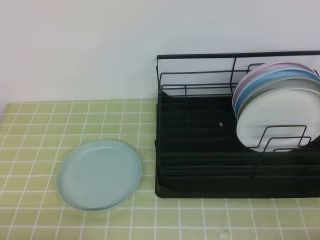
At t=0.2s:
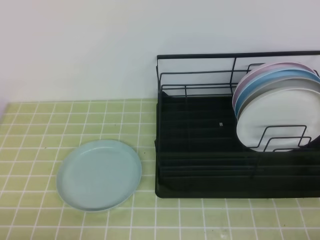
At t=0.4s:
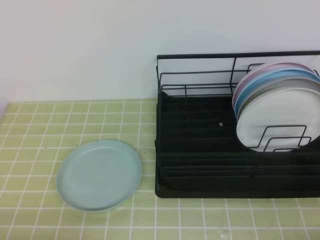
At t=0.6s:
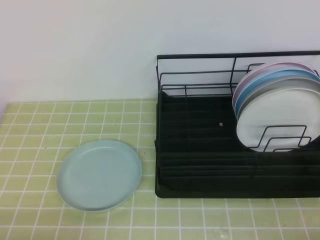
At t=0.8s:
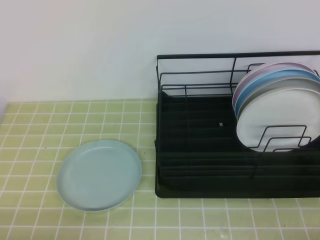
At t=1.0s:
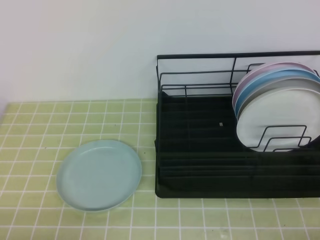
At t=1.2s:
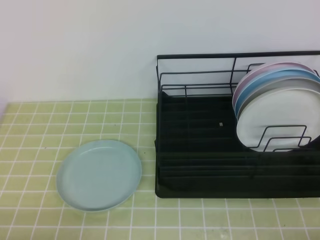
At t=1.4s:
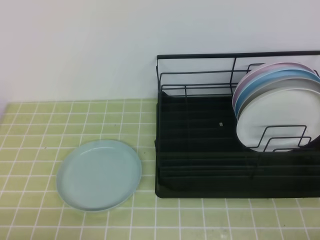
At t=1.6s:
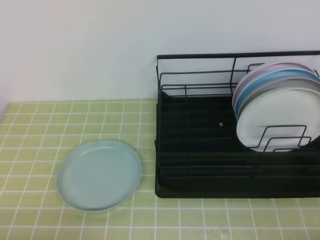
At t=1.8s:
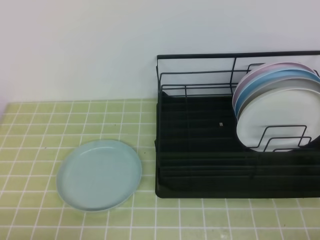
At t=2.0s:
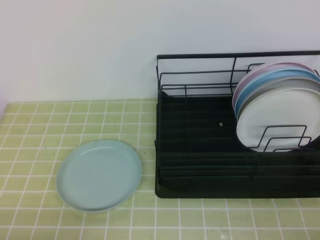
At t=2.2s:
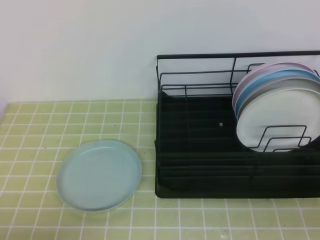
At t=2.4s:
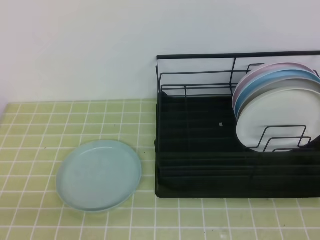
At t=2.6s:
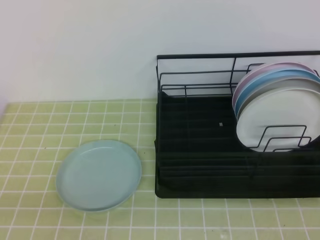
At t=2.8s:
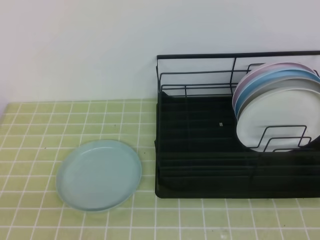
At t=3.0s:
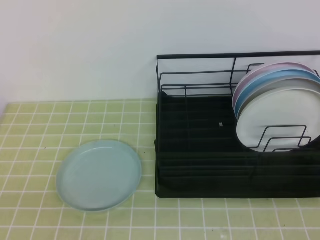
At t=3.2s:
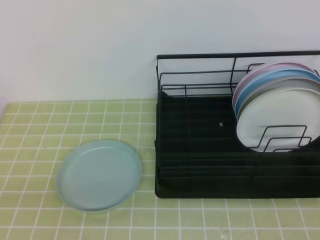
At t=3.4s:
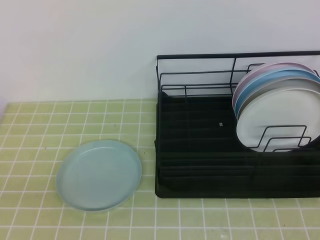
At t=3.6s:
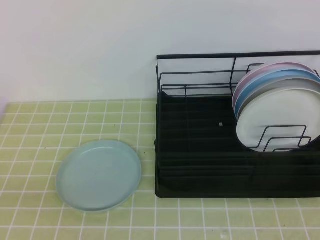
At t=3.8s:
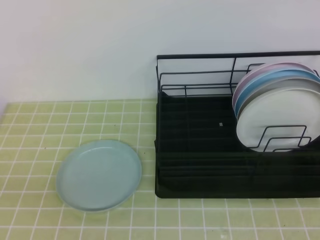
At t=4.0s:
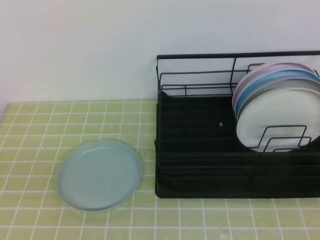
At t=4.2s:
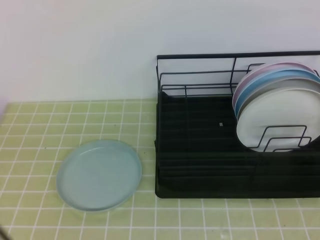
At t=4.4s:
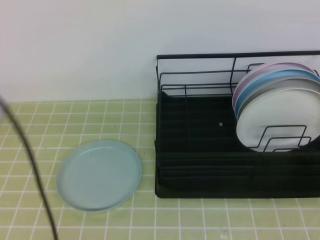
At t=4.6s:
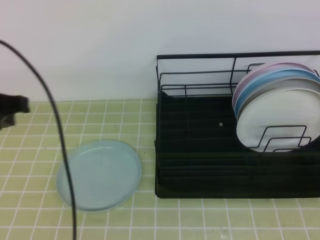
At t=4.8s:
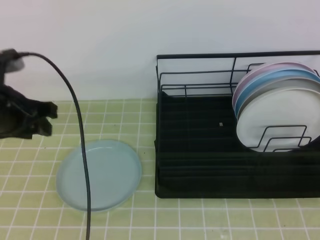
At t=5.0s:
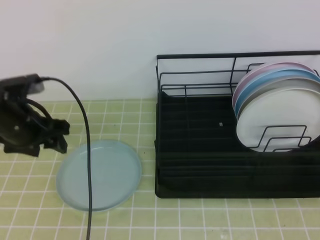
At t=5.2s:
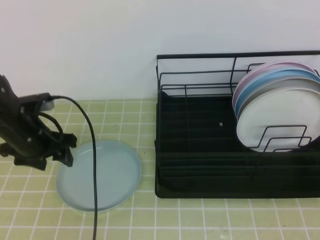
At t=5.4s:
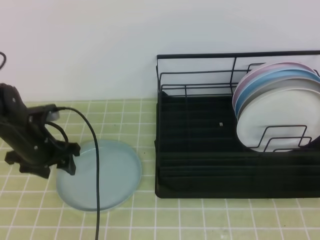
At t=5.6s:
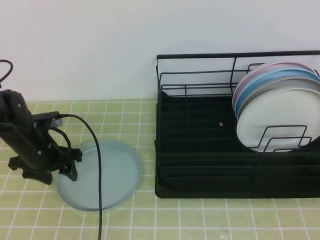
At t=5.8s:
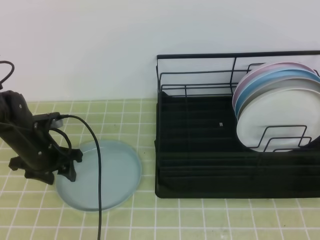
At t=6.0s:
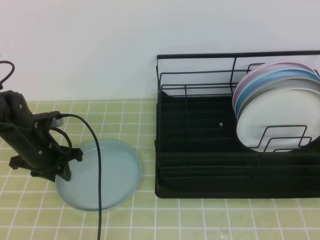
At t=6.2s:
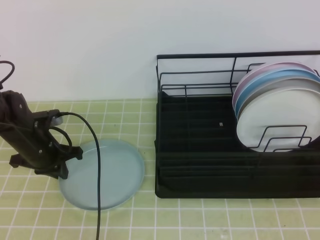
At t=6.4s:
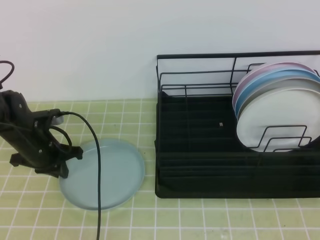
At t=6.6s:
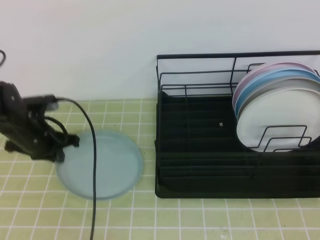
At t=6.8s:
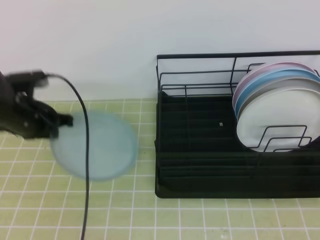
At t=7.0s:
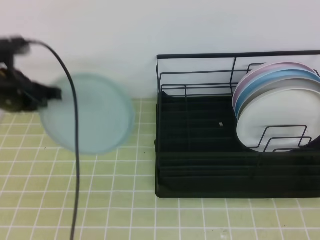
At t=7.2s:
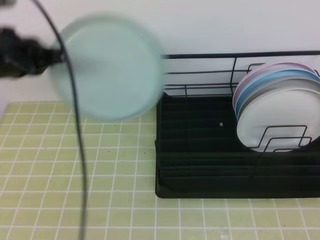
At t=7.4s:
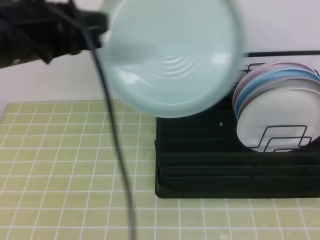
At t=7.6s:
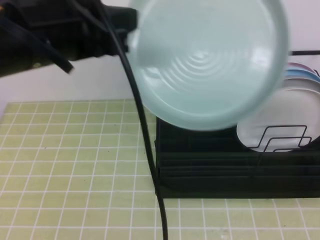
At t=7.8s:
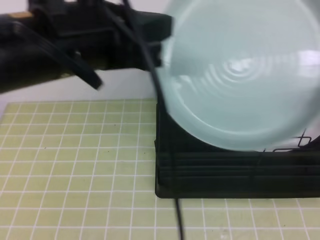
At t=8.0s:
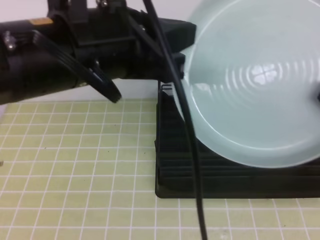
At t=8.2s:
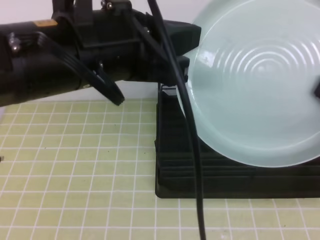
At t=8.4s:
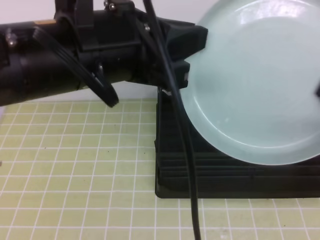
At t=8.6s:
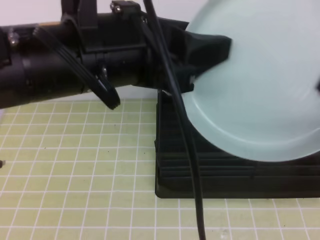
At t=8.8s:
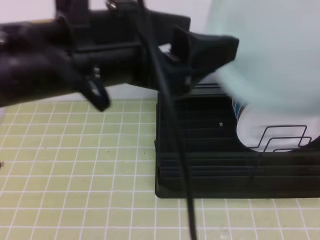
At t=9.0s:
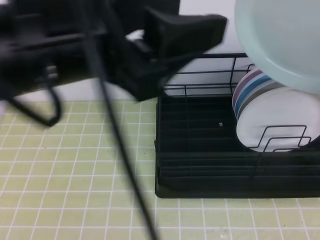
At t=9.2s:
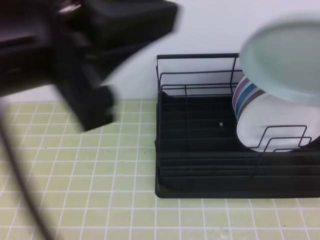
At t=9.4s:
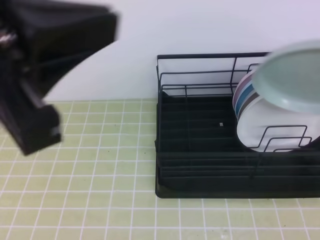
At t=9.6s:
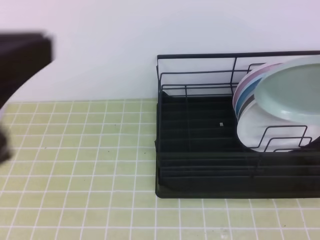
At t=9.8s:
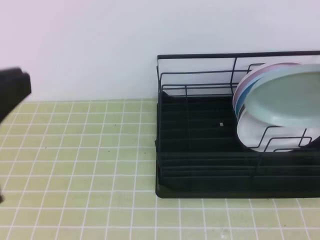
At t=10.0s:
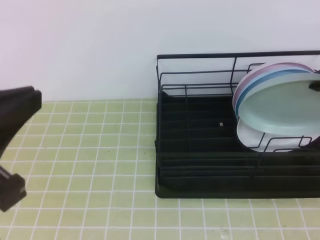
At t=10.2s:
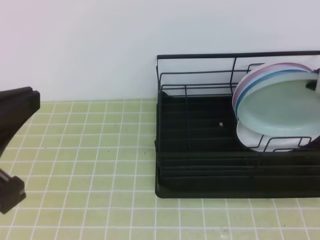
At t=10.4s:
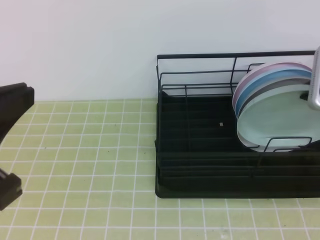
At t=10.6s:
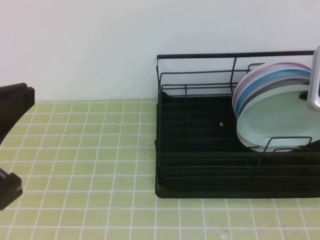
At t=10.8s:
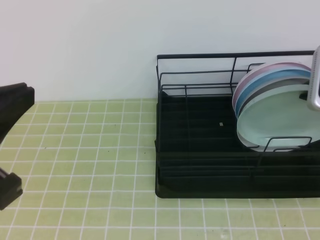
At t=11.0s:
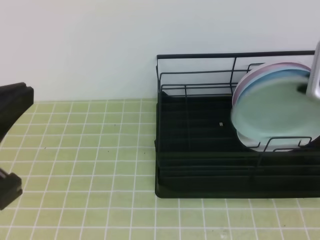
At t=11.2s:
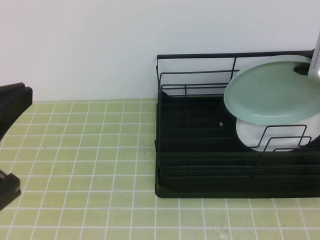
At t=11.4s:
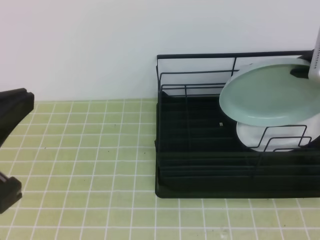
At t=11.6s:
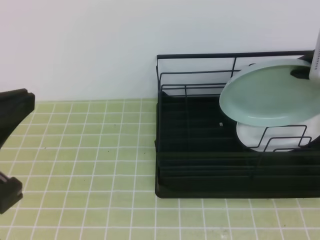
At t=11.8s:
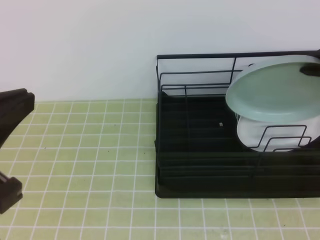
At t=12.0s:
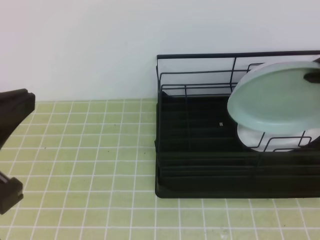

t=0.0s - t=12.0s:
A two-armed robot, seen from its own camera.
t=0.0s - t=1.6s: Neither gripper changes place.
t=3.0s - t=4.4s: The left gripper heads forward and upward, covering about 20 cm.
t=4.4s - t=6.0s: The left gripper heads downward and forward, covering approximately 30 cm, and opens up.
t=6.0s - t=7.6s: The left gripper travels upward and backward by about 30 cm, and closes. Meanwhile the right gripper travels upward by some 5 cm, and opens.
t=7.6s - t=9.0s: The right gripper goes some 5 cm forward, and closes its fingers; the left gripper heads backward, covering some 5 cm, and opens its fingers.
t=9.0s - t=10.4s: The right gripper is displaced forward and downward by about 15 cm. Meanwhile the left gripper travels to the left, backward and downward by approximately 15 cm, and closes up.
t=10.4s - t=12.0s: The grippers move only a little.

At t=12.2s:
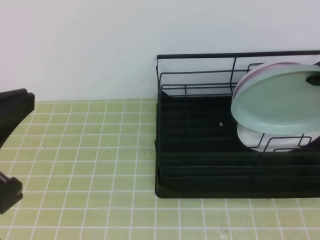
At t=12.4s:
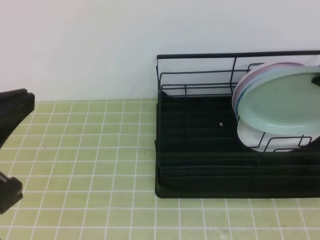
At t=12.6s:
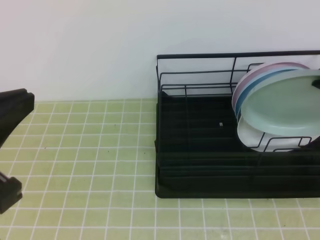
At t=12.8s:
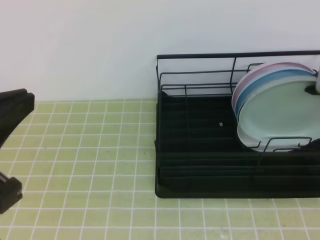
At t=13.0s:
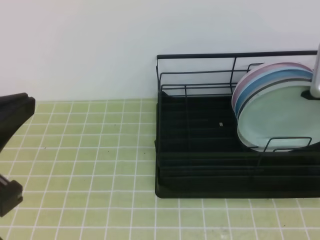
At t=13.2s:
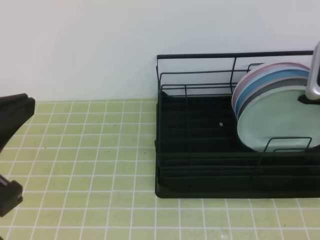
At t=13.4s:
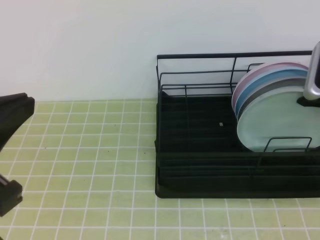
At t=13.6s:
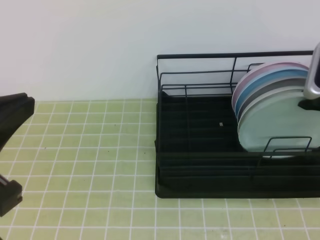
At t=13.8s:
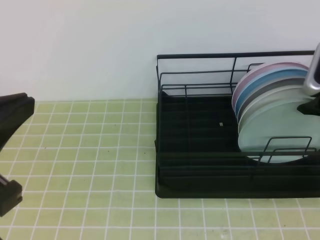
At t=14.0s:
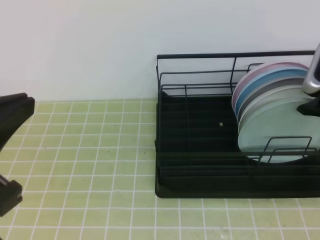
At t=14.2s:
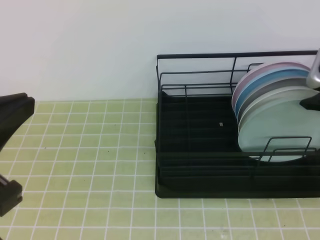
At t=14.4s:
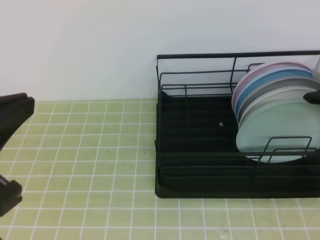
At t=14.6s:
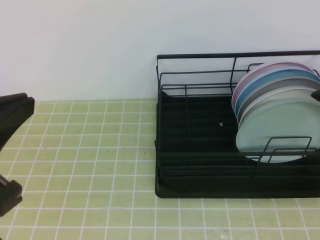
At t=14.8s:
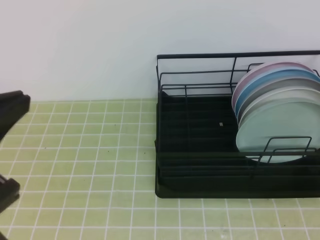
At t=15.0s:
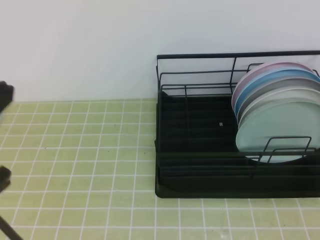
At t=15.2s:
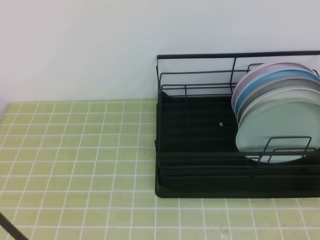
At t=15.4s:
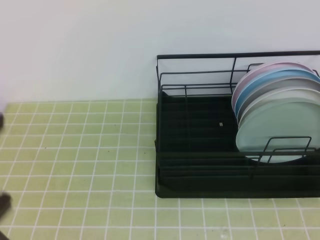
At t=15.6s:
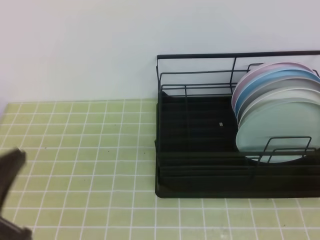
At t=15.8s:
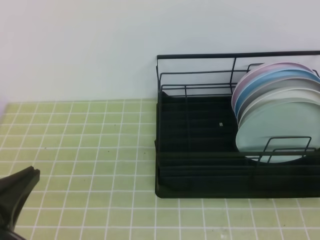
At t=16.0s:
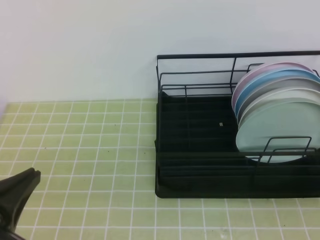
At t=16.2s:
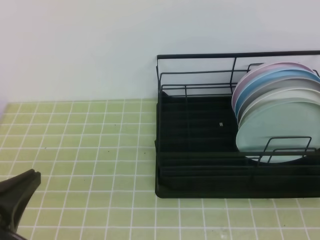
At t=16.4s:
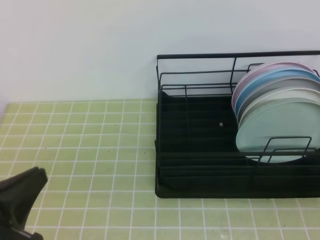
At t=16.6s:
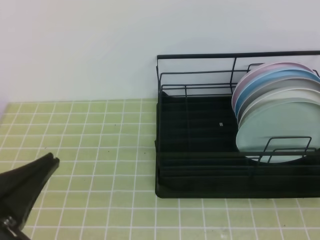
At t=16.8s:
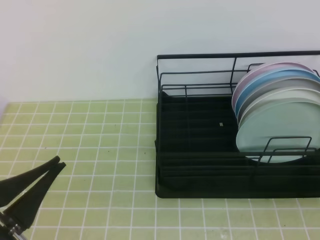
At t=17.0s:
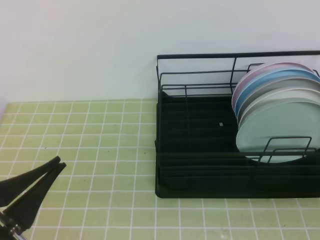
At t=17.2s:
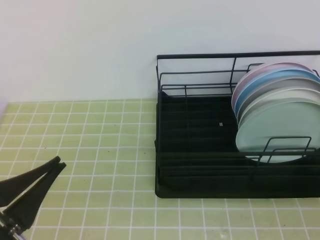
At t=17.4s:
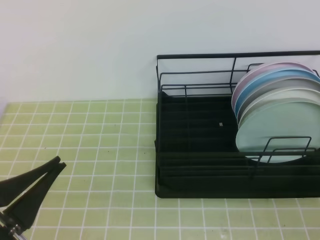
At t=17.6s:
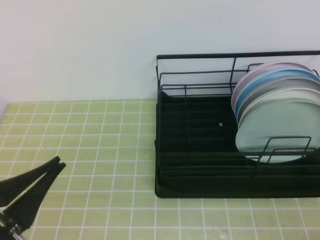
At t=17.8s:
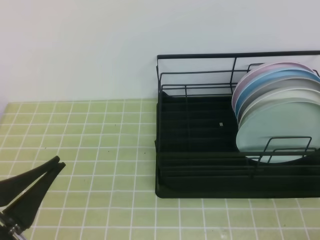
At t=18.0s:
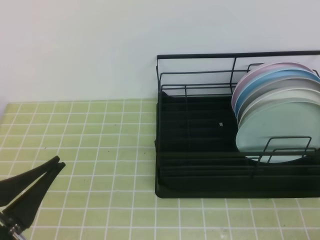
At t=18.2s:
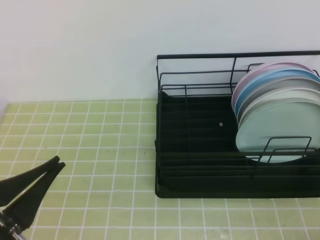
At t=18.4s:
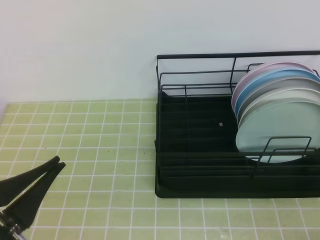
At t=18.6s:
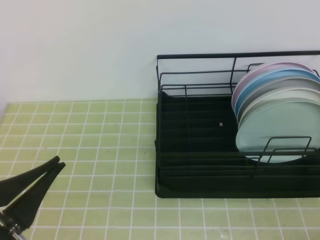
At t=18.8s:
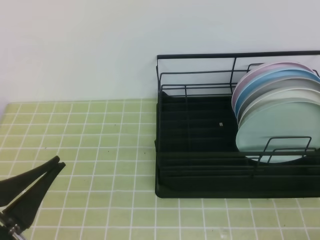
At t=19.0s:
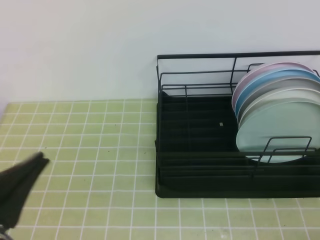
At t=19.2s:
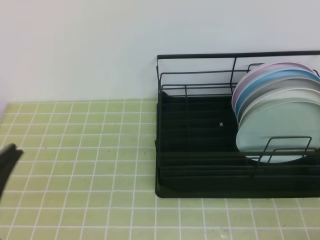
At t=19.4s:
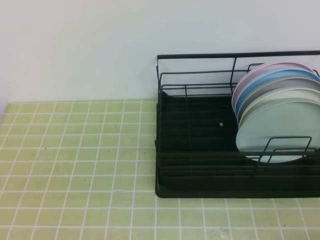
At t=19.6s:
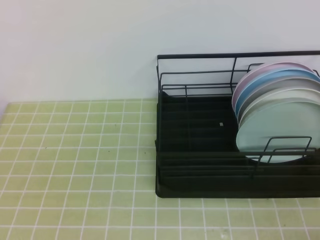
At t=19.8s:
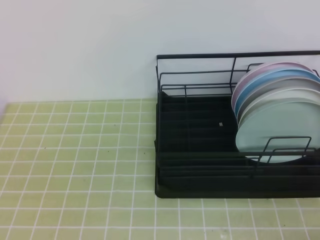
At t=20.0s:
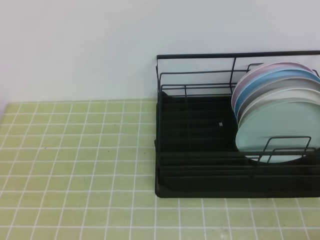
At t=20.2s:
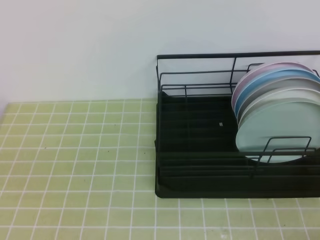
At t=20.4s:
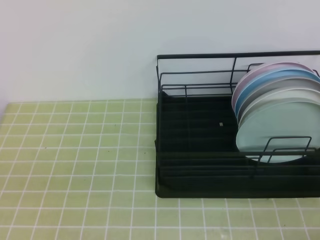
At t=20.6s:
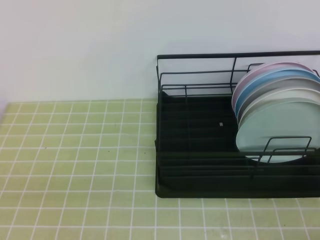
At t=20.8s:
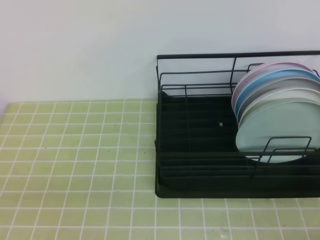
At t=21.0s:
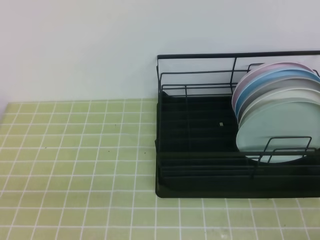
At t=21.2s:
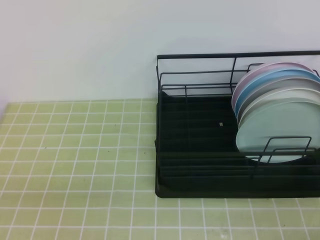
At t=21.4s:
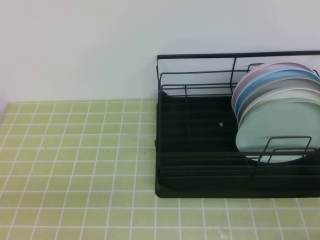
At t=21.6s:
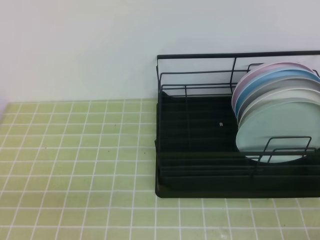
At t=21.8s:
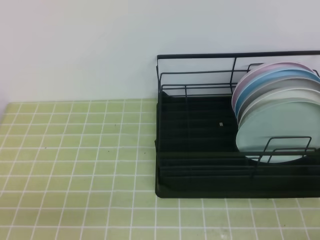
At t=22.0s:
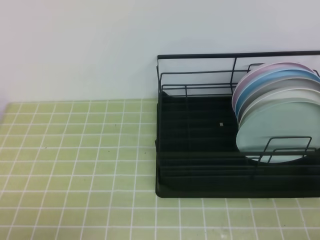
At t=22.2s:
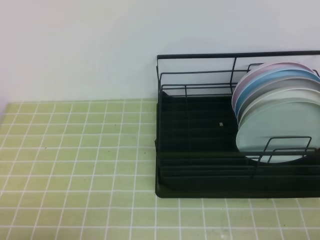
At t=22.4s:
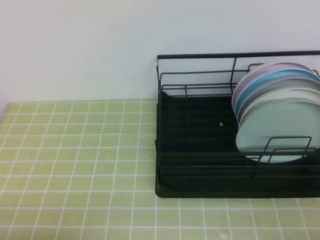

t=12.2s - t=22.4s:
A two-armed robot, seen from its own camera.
t=12.2s - t=13.6s: The right gripper travels downward by some 5 cm, and opens.
t=13.6s - t=15.2s: The right gripper travels backward and upward by some 20 cm, and closes.
t=15.2s - t=16.6s: The left gripper travels downward by some 10 cm.
t=18.0s - t=19.4s: The grippers make only small movements.
